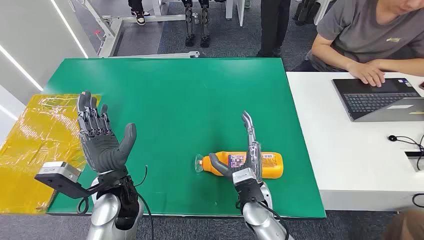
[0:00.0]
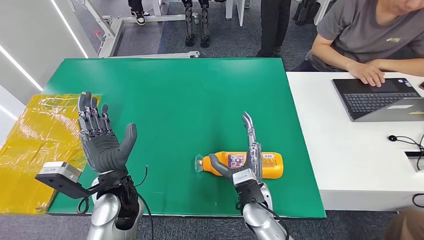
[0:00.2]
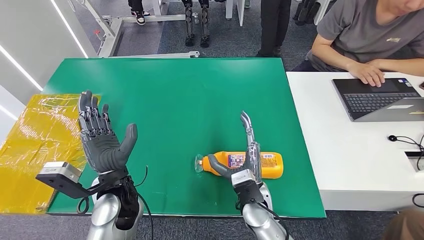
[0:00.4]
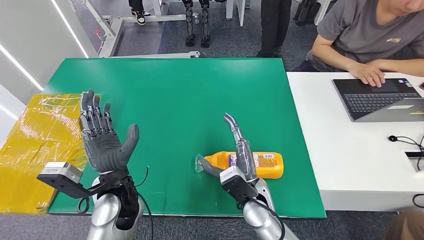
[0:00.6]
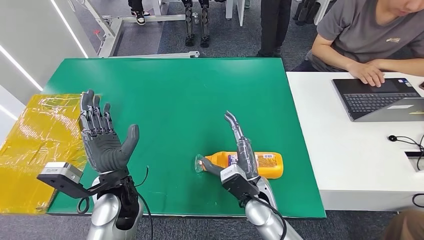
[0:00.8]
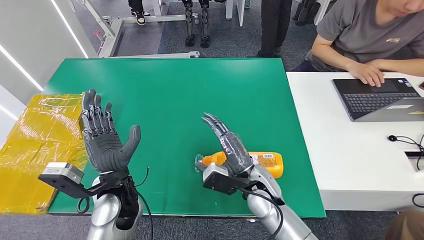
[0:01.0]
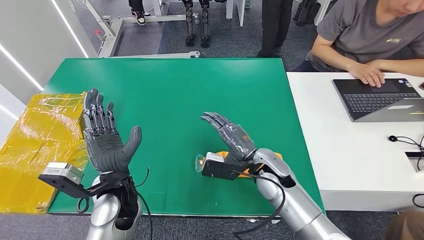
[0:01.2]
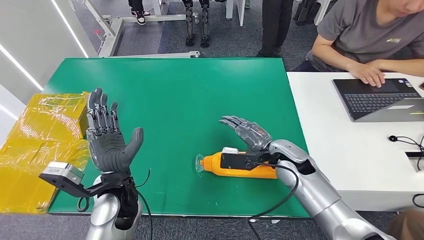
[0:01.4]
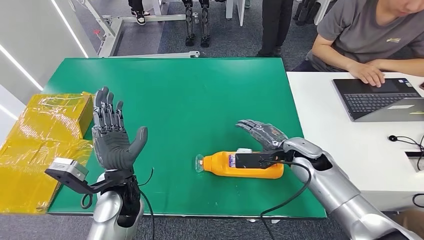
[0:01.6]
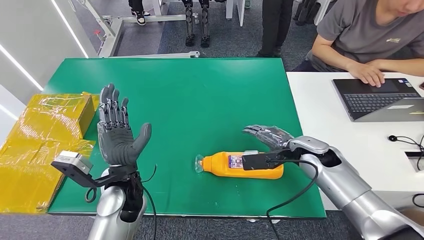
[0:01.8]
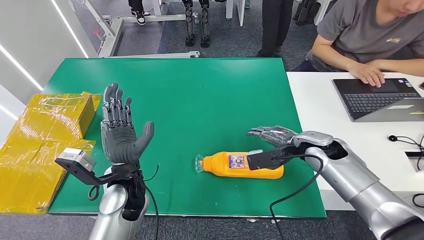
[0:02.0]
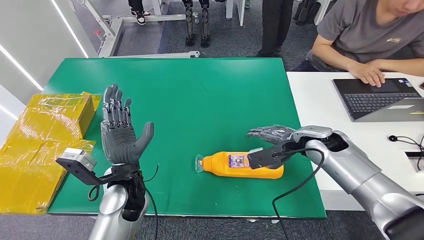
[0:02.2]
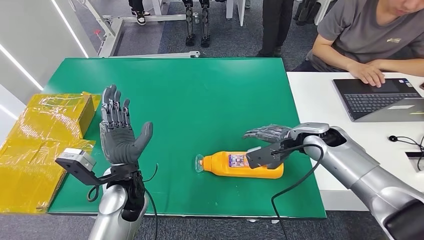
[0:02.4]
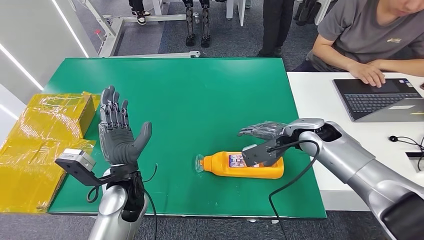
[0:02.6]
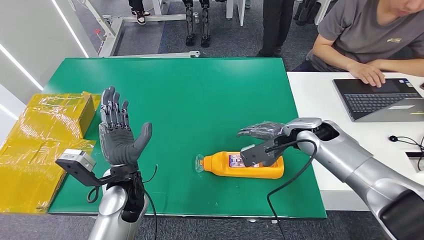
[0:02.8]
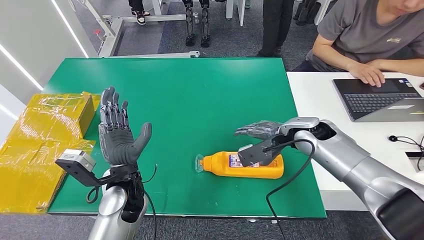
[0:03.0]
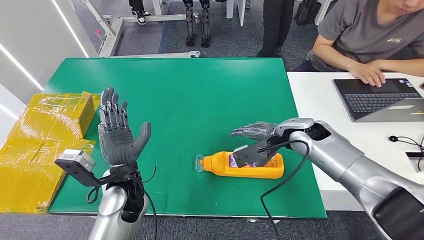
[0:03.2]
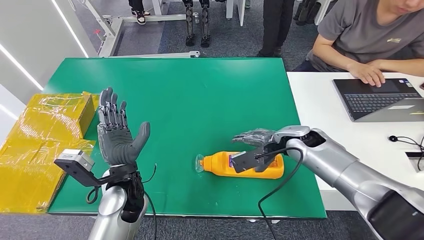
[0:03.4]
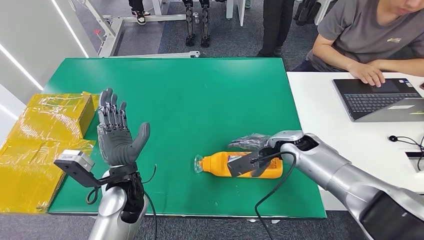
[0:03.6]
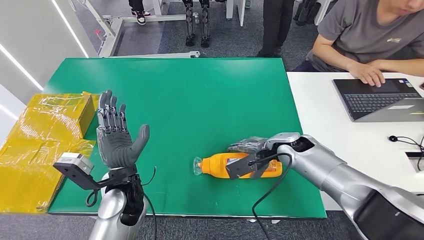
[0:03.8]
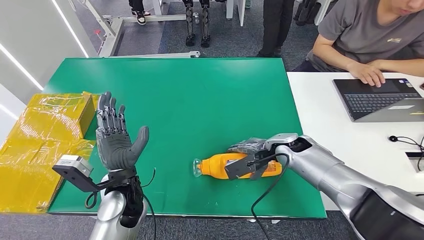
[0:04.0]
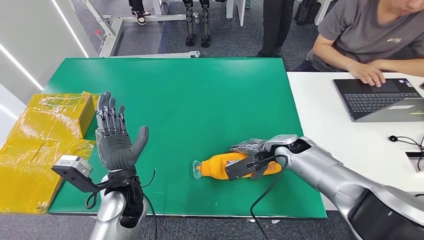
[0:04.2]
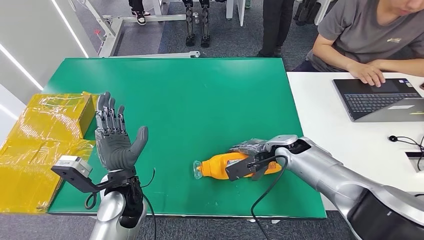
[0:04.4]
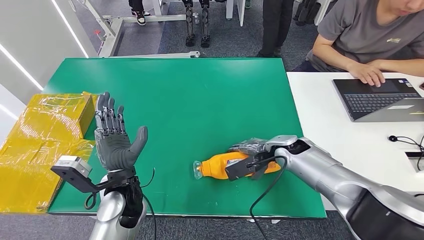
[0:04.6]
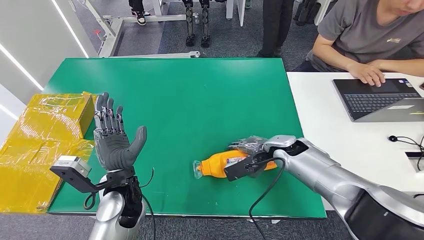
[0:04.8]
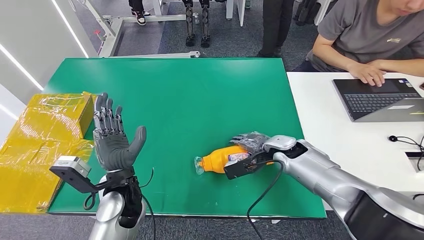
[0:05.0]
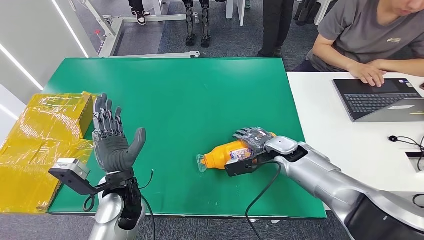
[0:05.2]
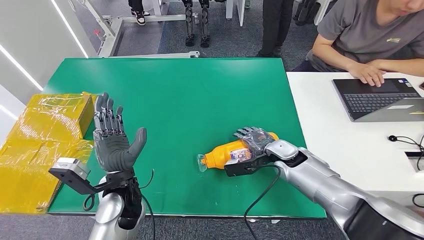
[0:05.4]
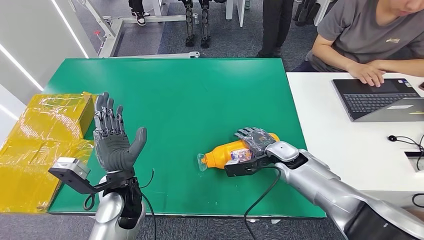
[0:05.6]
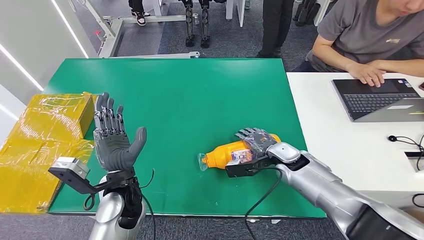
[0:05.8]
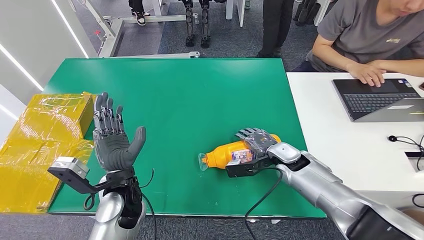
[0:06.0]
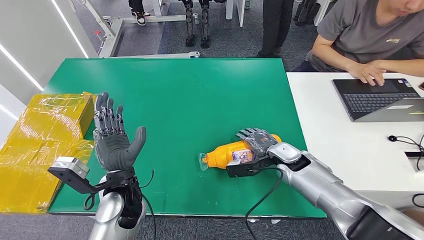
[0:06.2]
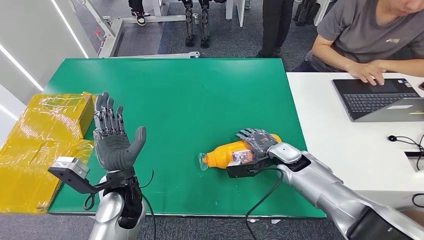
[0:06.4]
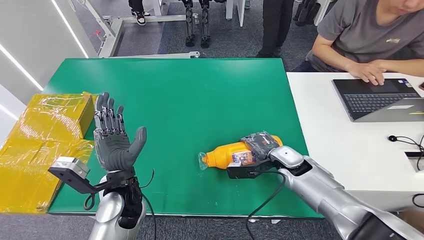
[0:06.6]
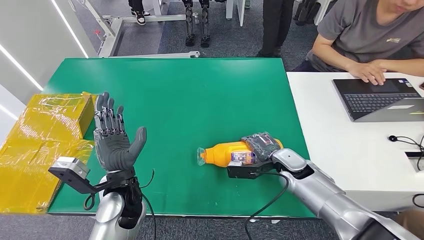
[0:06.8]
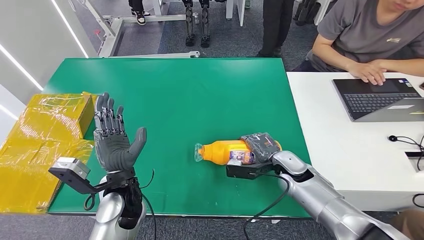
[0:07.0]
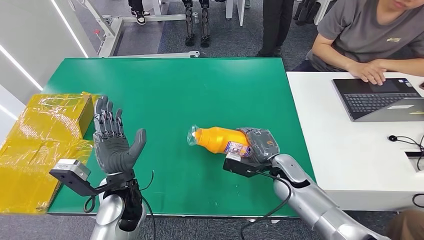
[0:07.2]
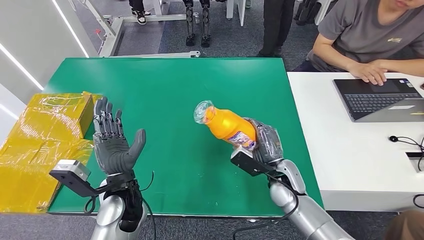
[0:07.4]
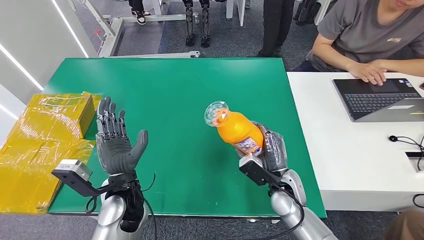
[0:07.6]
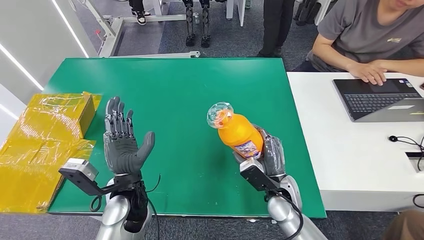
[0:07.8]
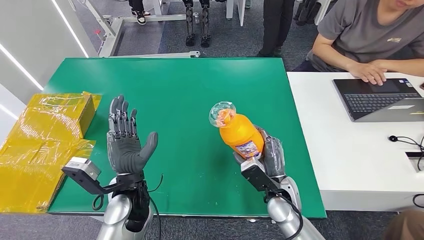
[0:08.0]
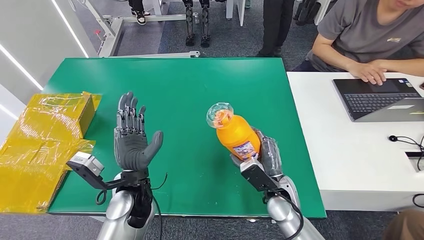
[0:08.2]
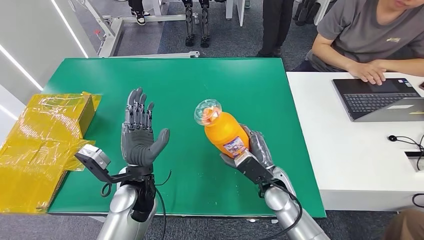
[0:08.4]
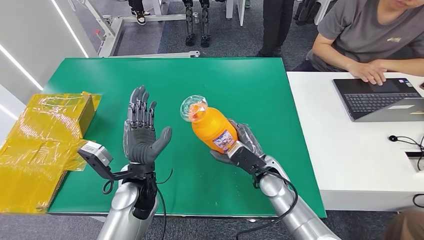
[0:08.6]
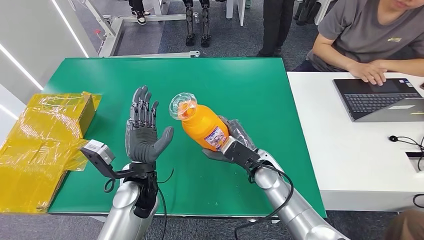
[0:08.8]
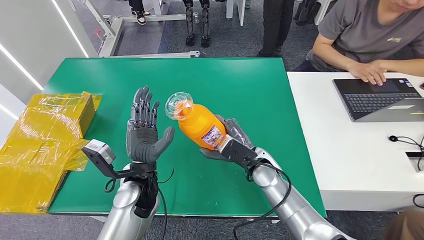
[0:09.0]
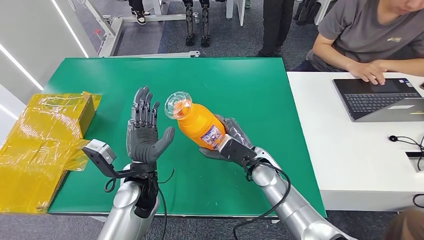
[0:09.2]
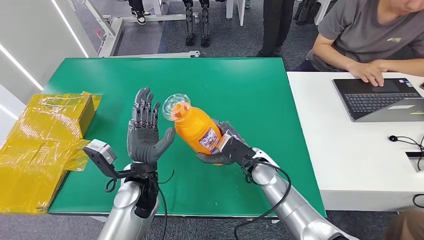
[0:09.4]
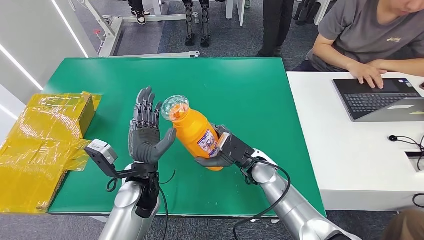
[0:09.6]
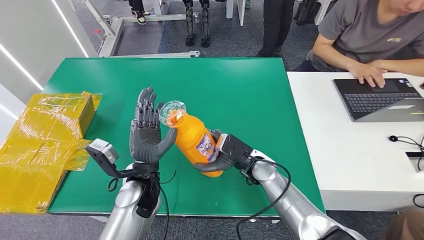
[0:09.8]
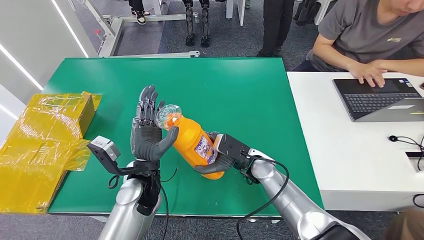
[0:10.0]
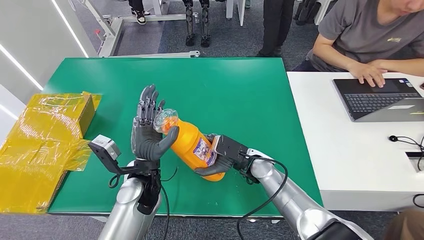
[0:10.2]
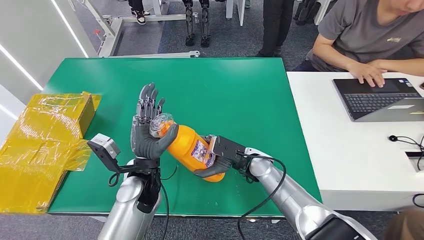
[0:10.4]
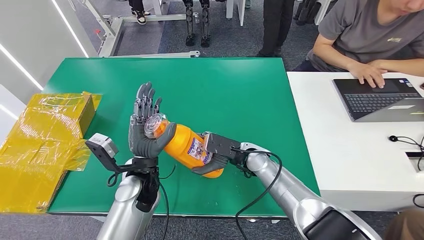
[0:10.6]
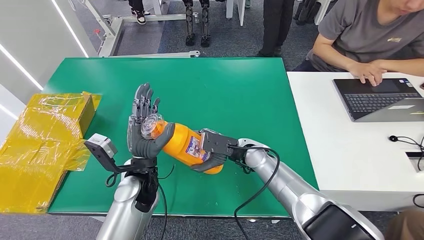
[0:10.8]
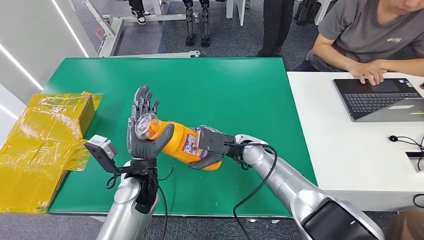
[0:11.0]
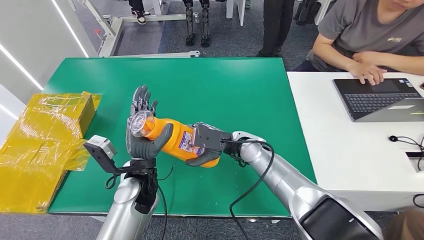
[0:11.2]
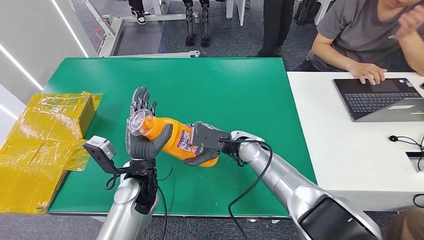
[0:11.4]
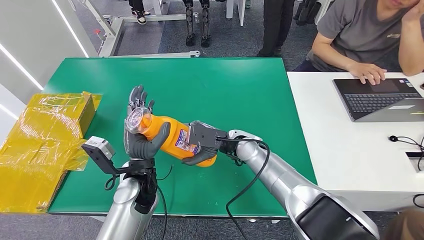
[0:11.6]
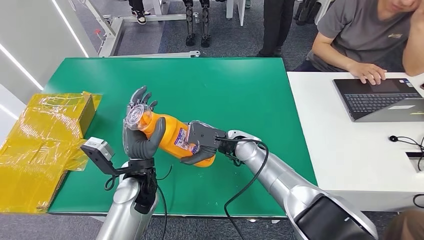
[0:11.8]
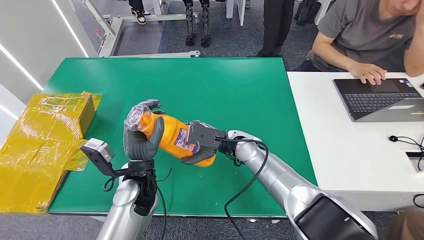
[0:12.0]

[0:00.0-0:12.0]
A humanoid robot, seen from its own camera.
Step, 0:00.0 to 0:07.8: Pick up the bottle from the table.
0:01.6 to 0:03.0: The right hand shifts about 5 cm upward.
0:03.0 to 0:04.4: The right hand heads downward, covering roughly 5 cm.
0:06.0 to 0:07.6: The right hand travels backward by roughly 10 cm.
0:07.6 to 0:09.0: The right hand goes roughly 10 cm to the left and forward.
0:10.4 to 0:12.0: The right hand heads upward, covering about 5 cm.

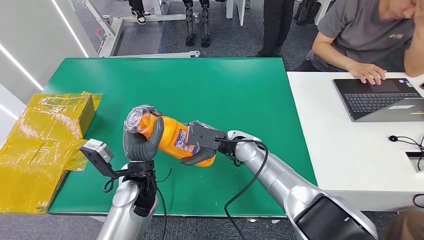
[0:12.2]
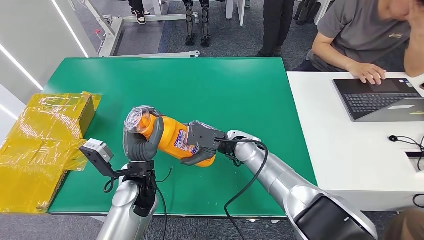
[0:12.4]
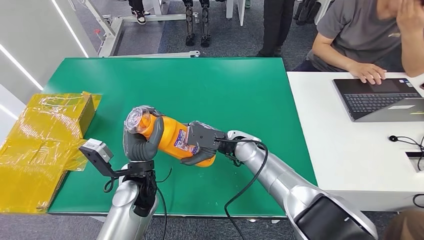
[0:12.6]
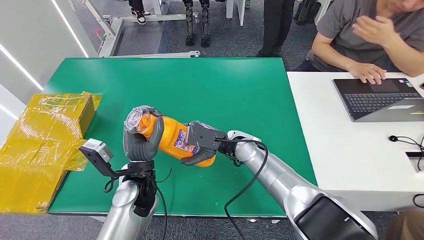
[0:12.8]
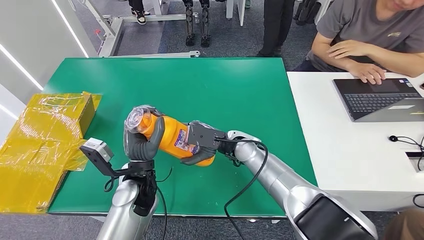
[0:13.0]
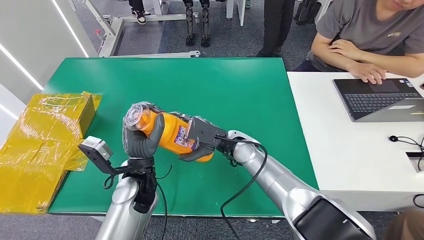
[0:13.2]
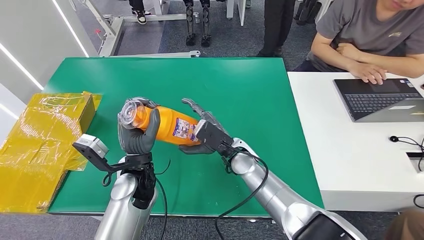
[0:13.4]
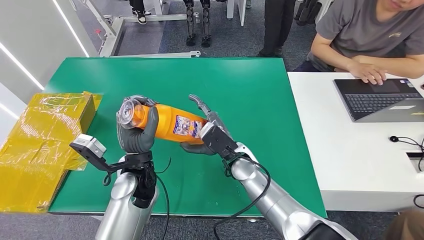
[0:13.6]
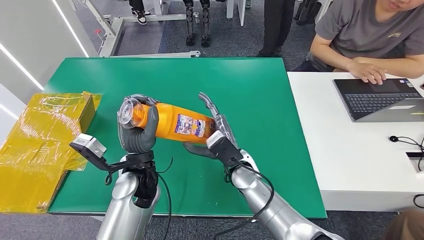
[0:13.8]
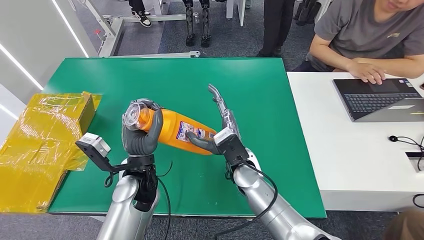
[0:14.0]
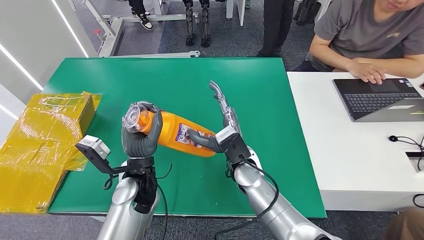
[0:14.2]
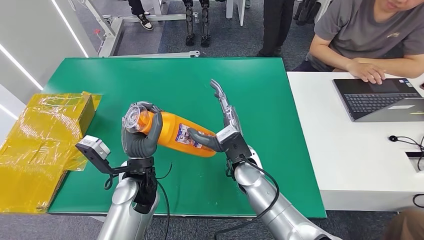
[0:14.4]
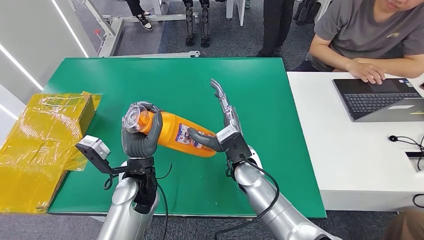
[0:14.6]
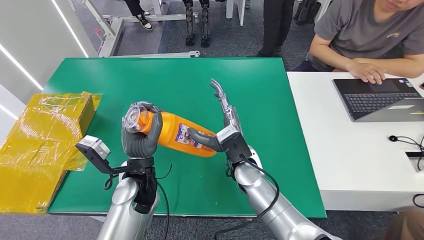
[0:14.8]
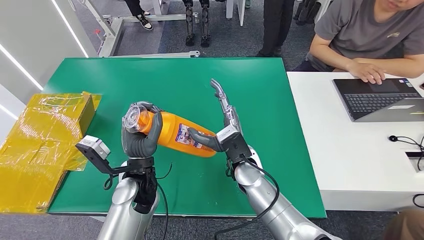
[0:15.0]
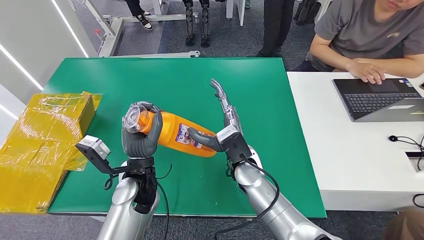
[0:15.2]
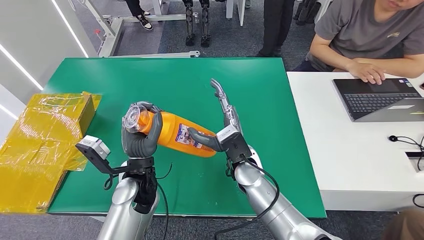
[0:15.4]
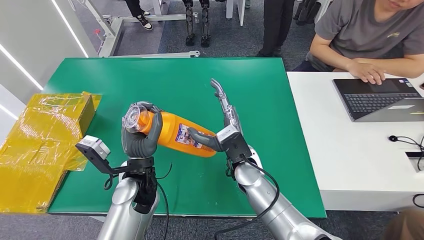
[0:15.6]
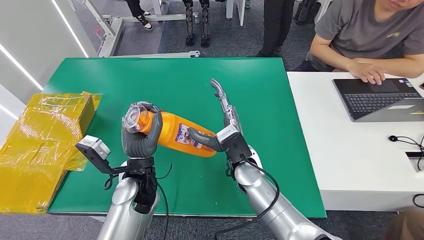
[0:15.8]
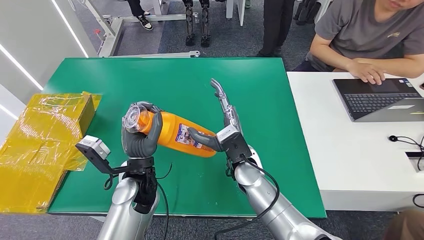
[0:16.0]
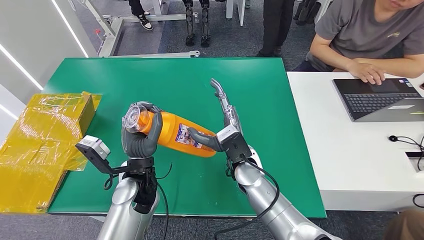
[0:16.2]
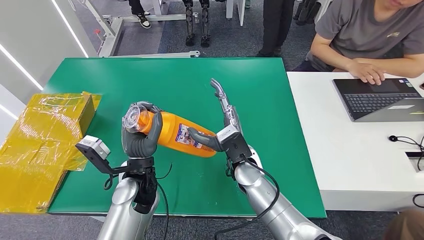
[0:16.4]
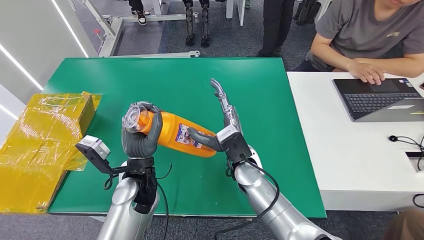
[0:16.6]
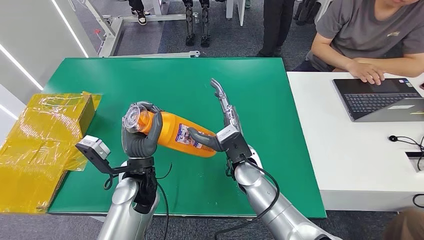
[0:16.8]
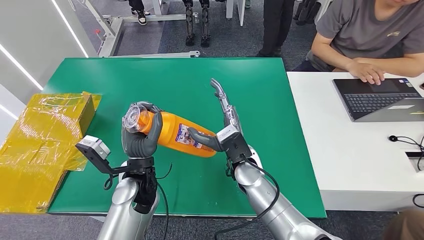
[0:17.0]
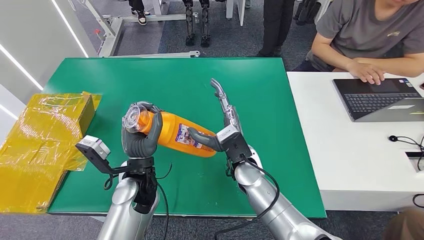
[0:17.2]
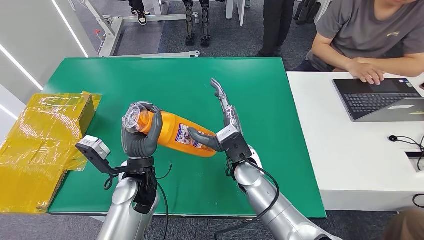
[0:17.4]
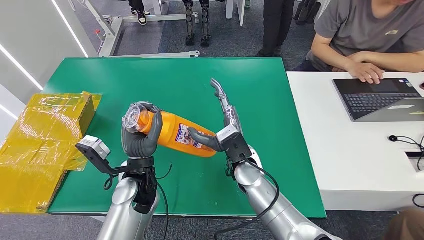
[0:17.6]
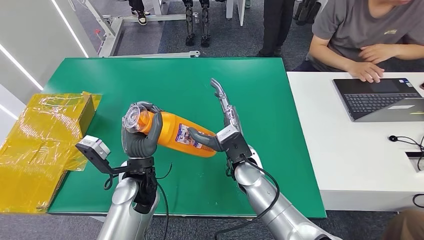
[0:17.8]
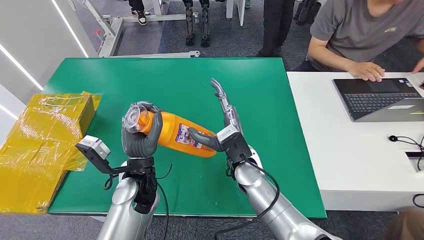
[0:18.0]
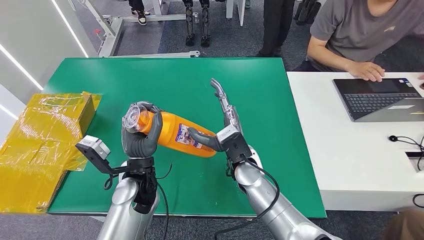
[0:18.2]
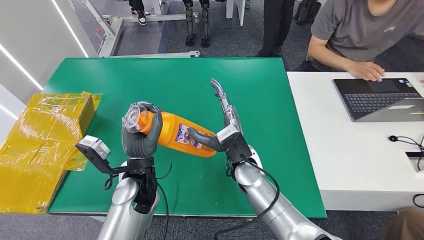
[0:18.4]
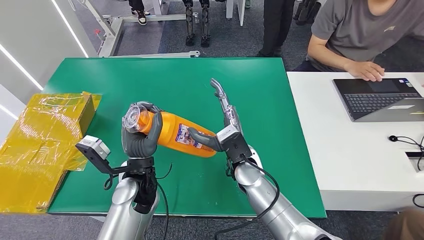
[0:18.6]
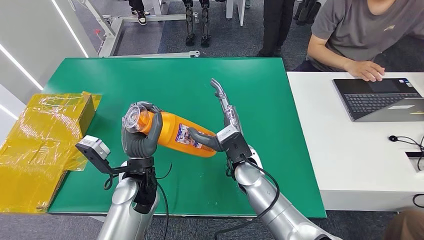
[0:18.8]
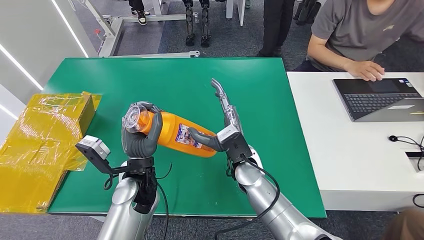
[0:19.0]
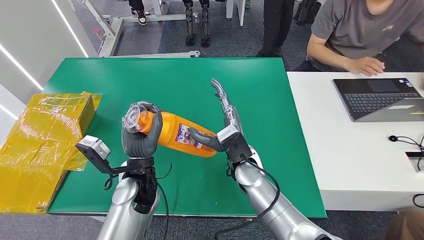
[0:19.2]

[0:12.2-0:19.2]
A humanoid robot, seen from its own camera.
0:13.6 to 0:15.0: There are only small adjustments of the hands.
0:15.0 to 0:19.2: Neither hand changes place.
